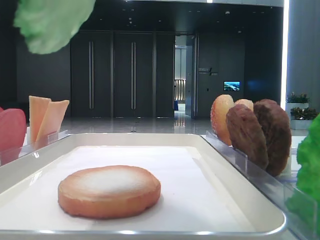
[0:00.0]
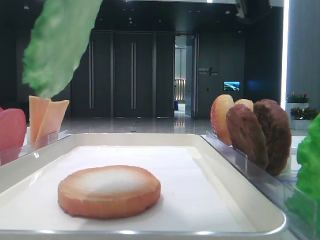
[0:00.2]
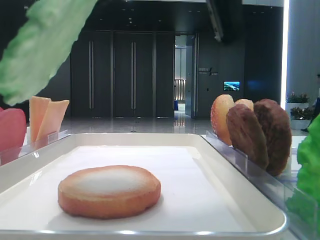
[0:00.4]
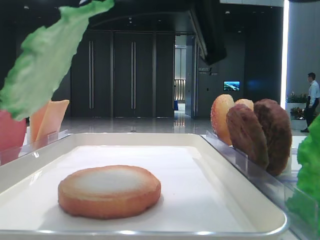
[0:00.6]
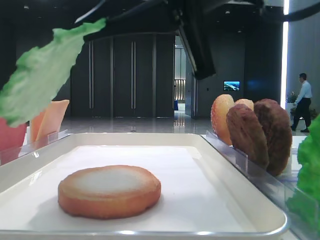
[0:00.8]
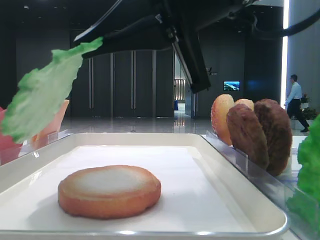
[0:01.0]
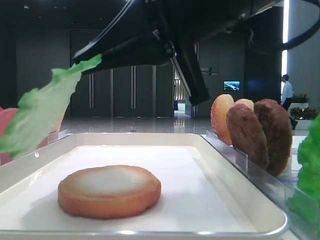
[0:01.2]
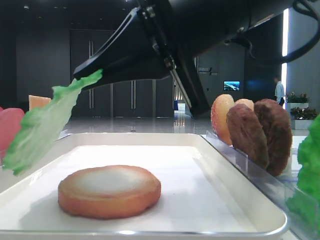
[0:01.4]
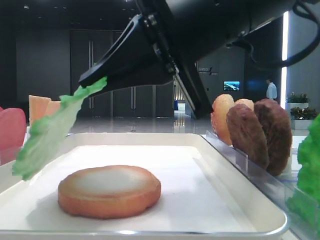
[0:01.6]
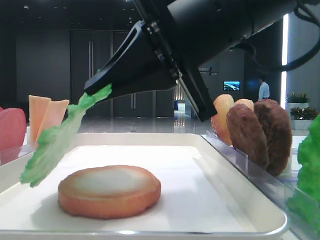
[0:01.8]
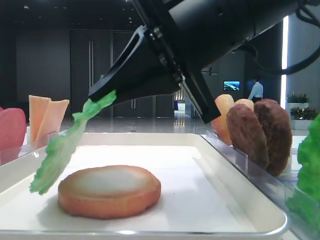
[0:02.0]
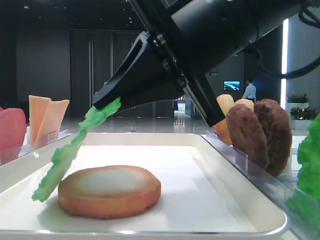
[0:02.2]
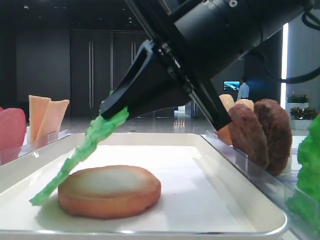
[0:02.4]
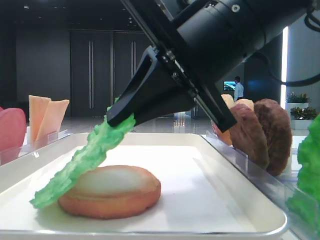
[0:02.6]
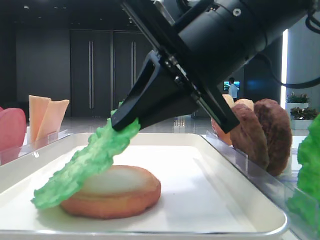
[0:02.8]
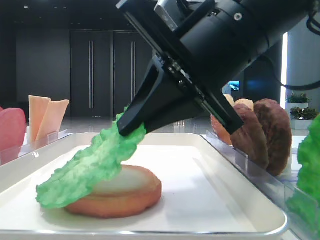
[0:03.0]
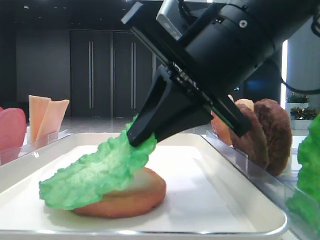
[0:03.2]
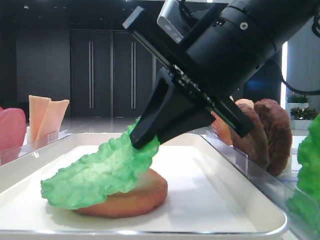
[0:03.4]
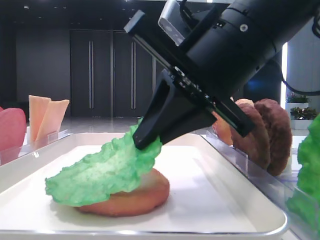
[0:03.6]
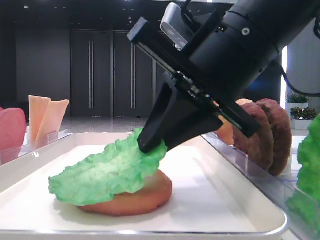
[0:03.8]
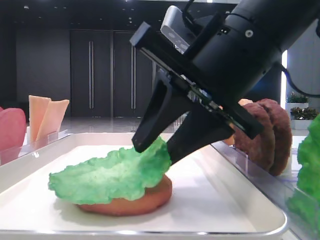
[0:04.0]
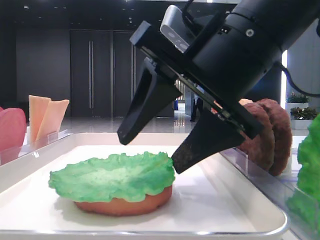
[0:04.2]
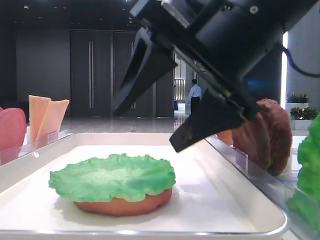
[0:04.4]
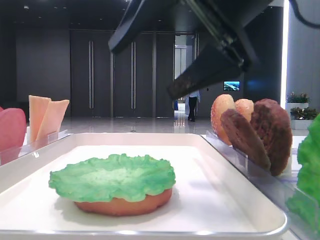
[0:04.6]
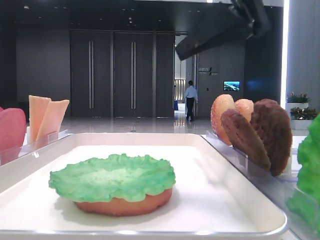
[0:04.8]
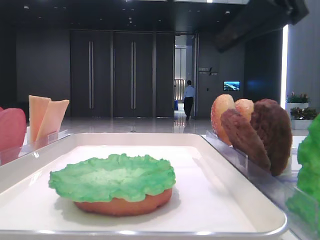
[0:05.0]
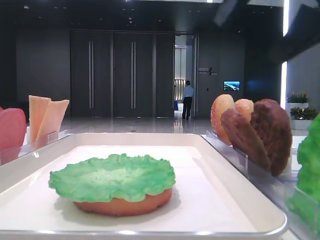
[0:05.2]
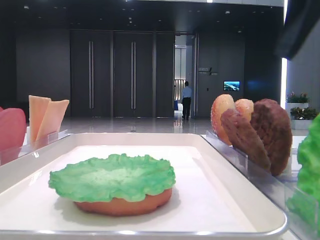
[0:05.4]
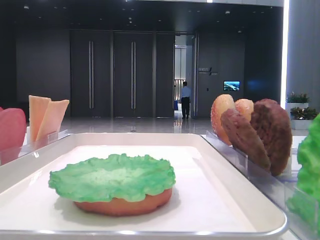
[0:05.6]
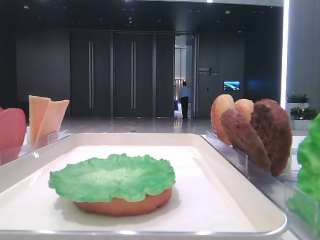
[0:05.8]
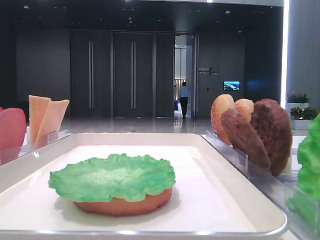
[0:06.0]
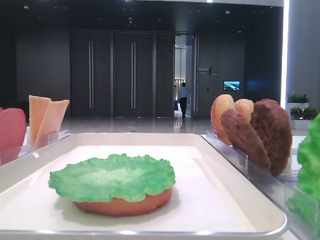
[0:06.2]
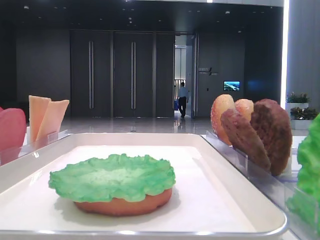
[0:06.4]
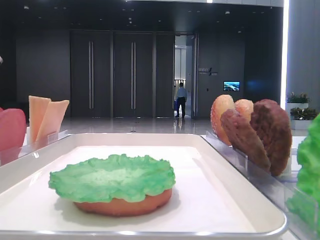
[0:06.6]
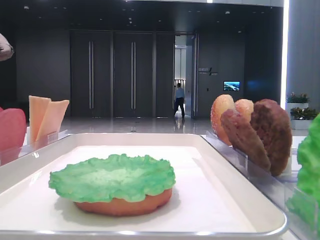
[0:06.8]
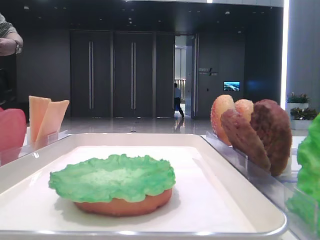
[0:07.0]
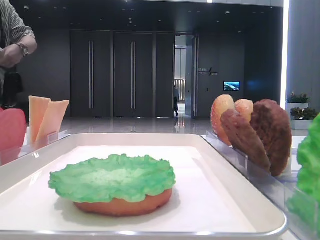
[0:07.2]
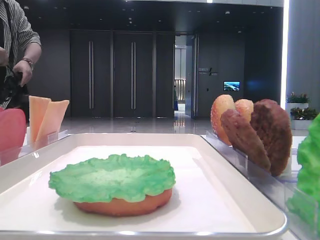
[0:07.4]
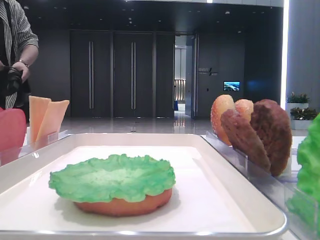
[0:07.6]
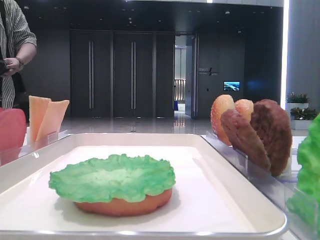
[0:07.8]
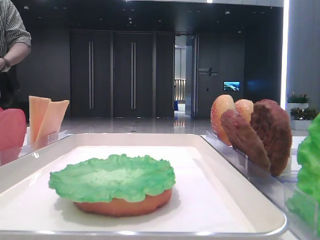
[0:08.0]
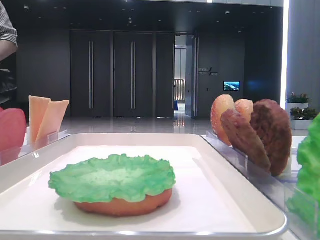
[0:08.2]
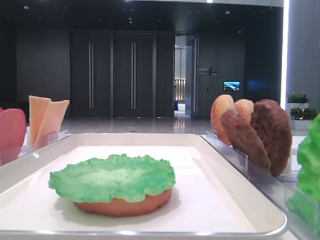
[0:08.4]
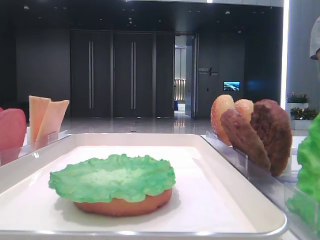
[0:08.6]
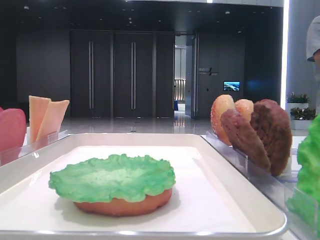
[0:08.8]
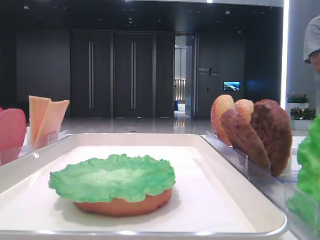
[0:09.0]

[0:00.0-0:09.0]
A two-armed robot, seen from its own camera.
Step, 0.0 to 4.2 s: Place the lettuce leaf on the bottom bread with the right hand.
0.0 to 1.6 s: The right gripper heads downward and forward, covering about 10 cm.
3.0 to 4.4 s: The right gripper opens its fingers.
4.4 to 6.0 s: The right gripper is displaced to the right by roughly 20 cm.
6.0 to 7.6 s: The right gripper heads backward, covering roughly 20 cm.
7.6 to 9.0 s: Both grippers stay put.

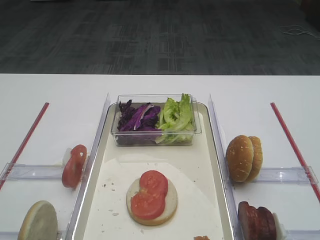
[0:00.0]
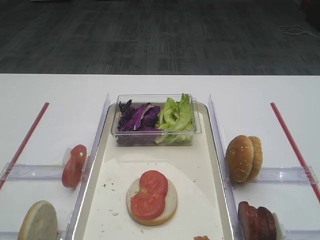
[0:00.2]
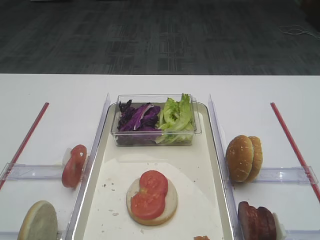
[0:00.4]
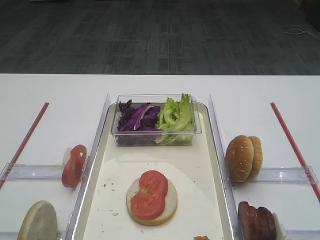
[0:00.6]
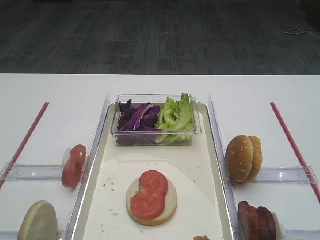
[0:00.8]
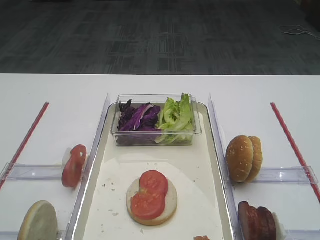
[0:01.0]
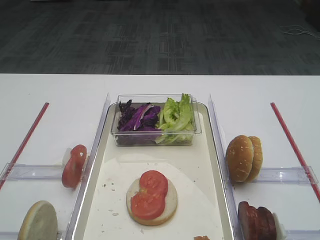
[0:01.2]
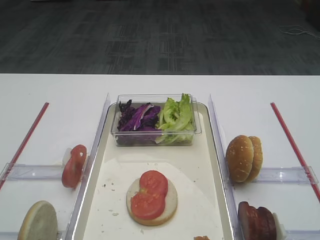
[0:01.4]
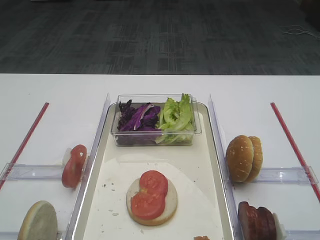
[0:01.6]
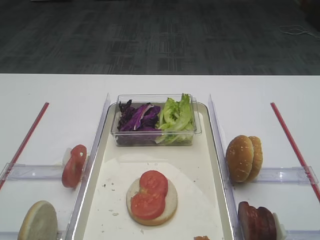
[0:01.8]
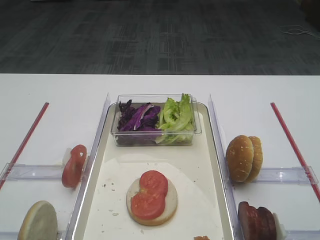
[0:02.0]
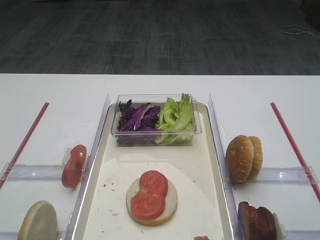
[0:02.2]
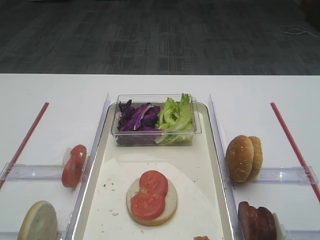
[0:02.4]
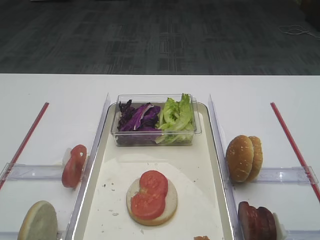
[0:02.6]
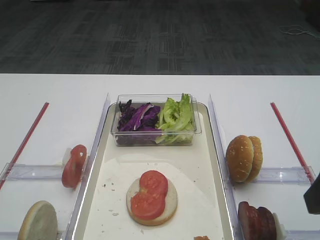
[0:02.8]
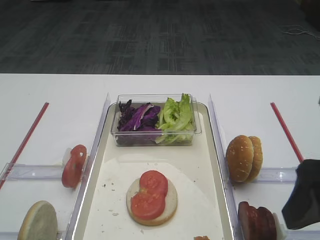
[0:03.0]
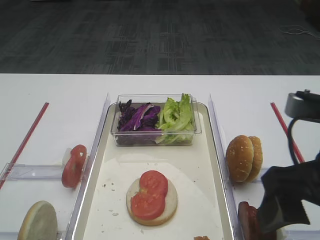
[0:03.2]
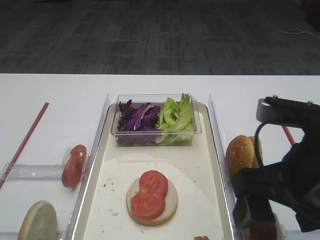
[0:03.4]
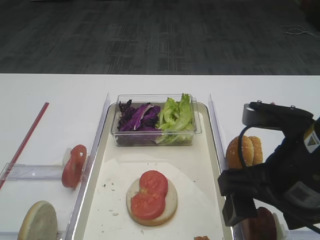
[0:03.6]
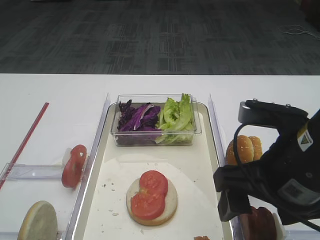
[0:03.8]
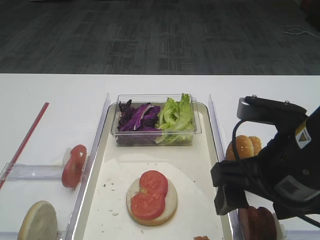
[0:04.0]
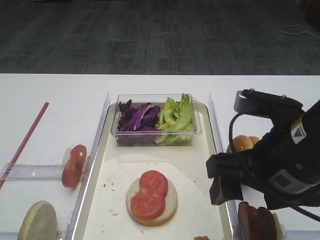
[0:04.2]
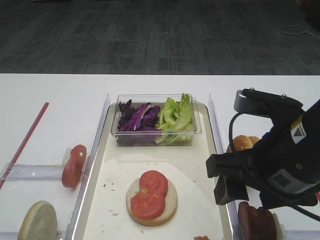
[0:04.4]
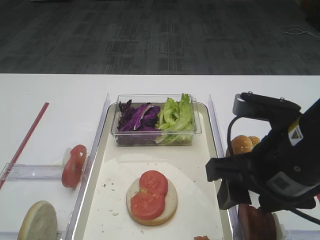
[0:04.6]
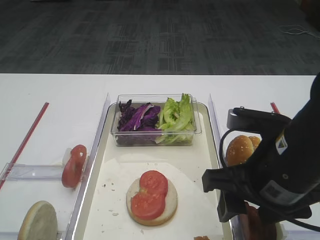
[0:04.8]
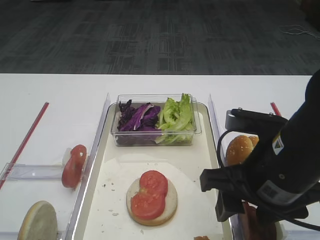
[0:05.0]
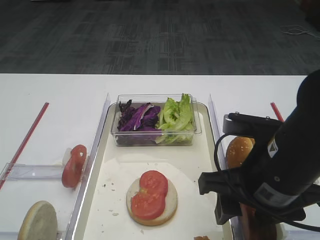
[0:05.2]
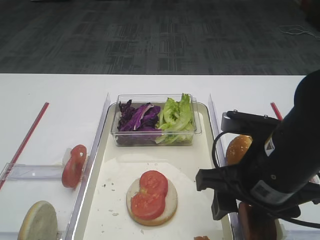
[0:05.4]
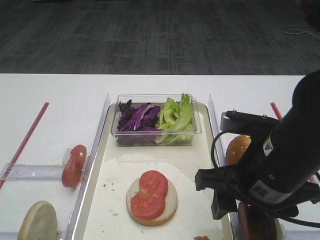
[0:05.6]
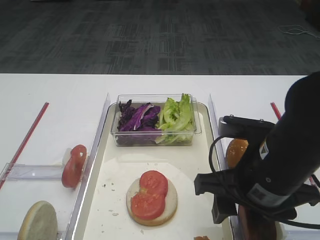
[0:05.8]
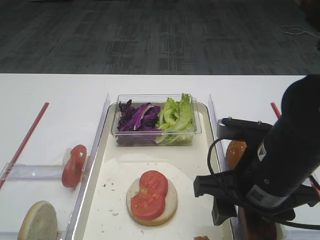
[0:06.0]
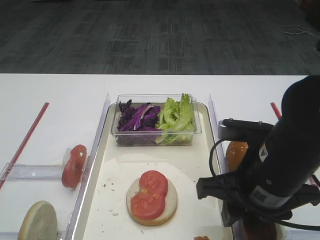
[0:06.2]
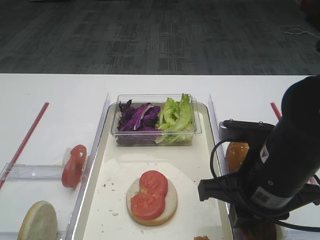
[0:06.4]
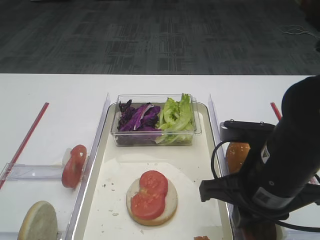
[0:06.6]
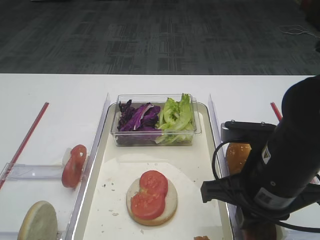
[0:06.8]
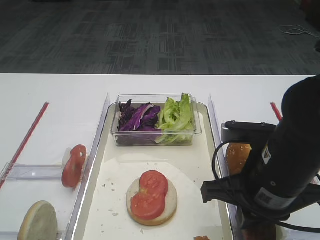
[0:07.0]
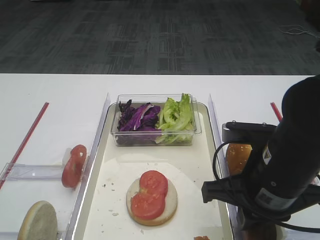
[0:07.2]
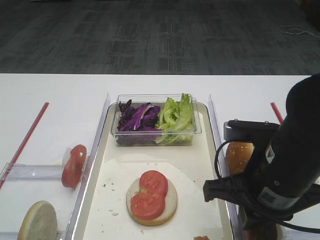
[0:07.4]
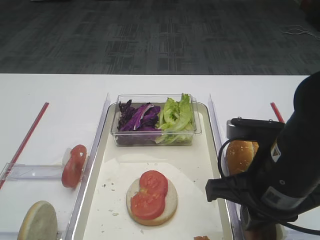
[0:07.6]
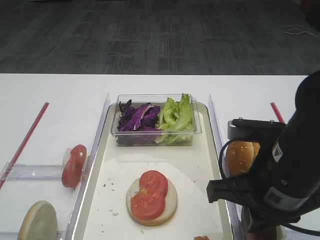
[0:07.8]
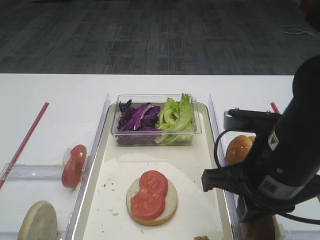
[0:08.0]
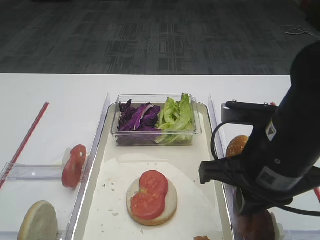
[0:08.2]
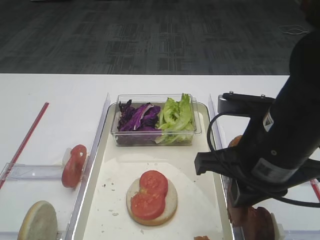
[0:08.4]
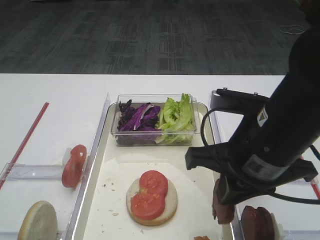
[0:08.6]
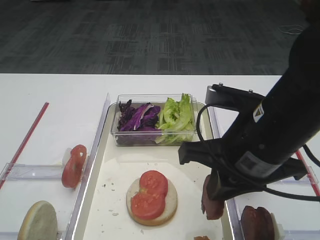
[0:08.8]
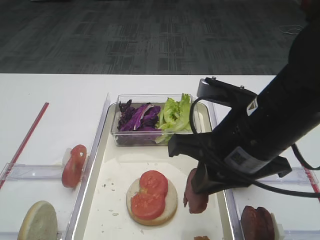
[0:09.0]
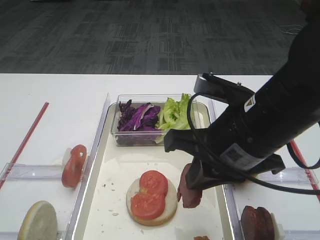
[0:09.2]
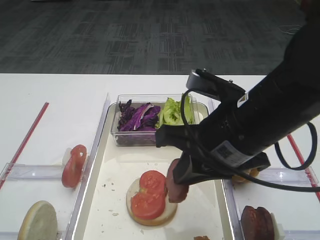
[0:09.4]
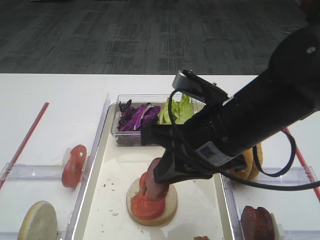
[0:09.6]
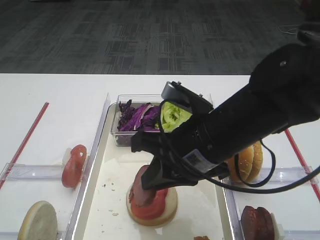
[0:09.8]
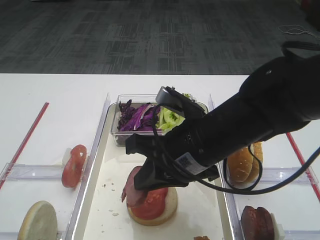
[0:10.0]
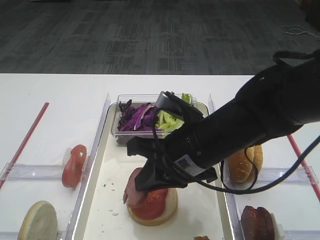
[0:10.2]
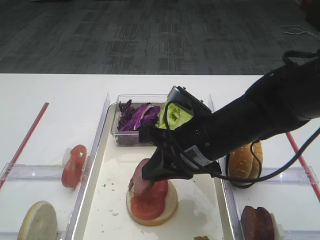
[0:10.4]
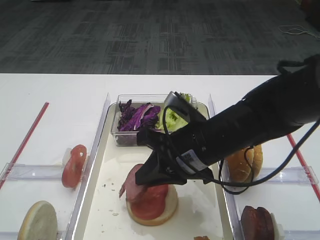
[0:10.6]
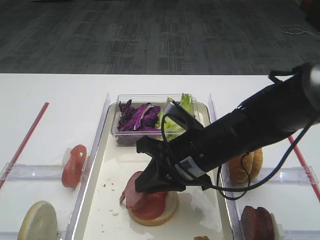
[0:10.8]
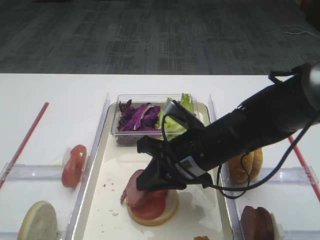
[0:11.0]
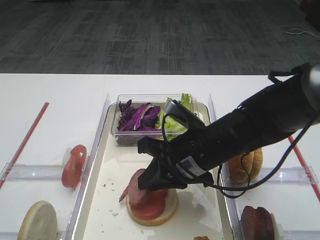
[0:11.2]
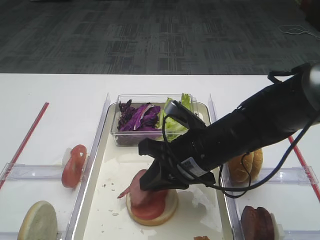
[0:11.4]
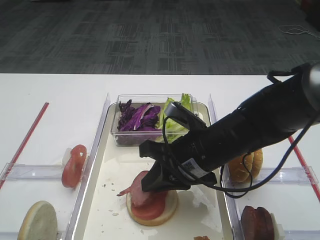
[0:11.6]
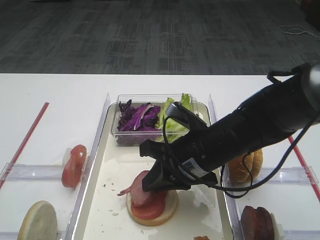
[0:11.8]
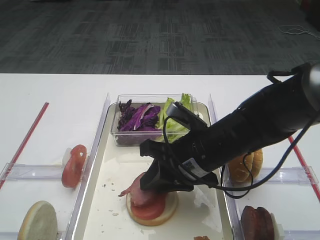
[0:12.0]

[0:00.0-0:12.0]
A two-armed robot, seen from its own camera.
Step, 0.0 to 8.2 s: Pick up the cutlet with the right gripper.
1.6 to 3.0 s: The right gripper travels forward by about 5 cm.
3.0 to 4.4 s: The right gripper heads to the left, covering approximately 5 cm.
4.4 to 6.0 s: The right gripper shifts by approximately 5 cm.
6.0 to 7.6 s: The right gripper closes its fingers.
7.6 to 9.0 s: The right gripper changes place by approximately 5 cm.
9.0 to 10.4 s: The right gripper travels downward and forward by some 10 cm.
10.4 to 12.0 s: The grippers make only small movements.

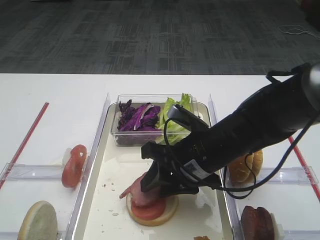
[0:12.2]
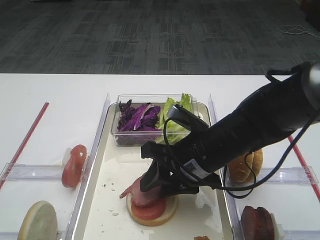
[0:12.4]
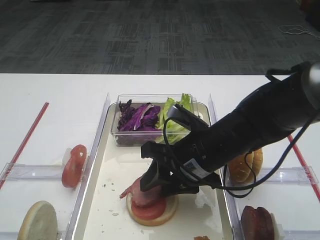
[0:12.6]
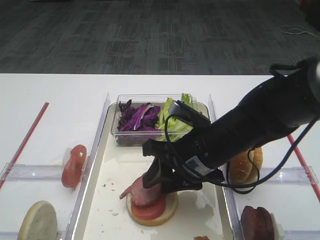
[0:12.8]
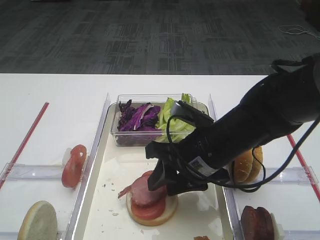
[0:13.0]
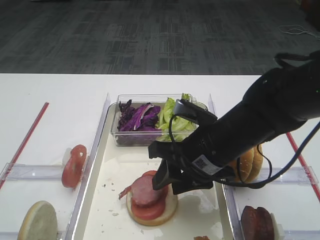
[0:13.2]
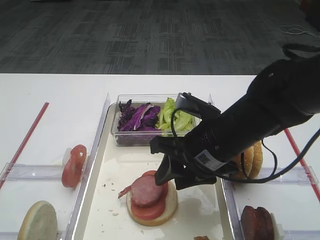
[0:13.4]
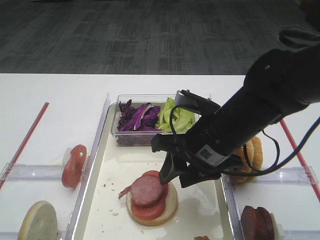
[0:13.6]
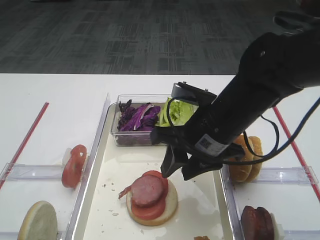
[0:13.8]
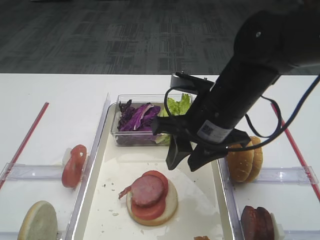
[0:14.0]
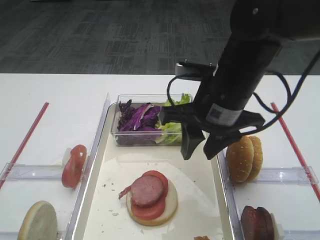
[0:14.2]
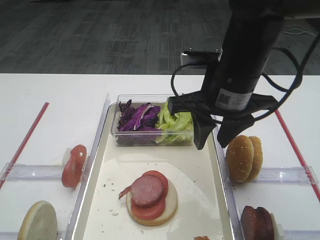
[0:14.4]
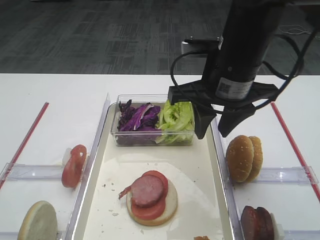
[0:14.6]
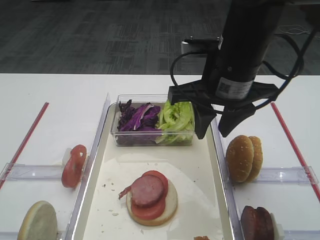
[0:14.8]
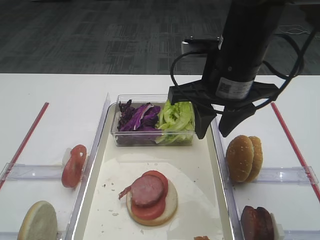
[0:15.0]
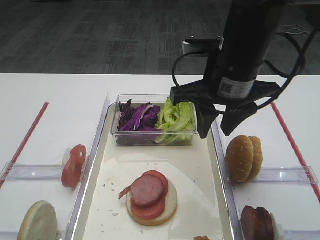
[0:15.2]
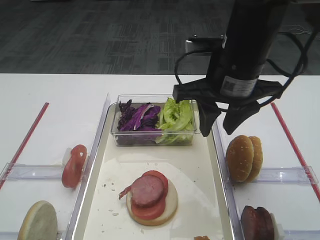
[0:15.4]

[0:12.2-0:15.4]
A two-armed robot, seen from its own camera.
12.2 to 13.8 s: The right gripper changes place by about 5 cm.
13.8 to 15.4 s: The right gripper travels upward by roughly 10 cm.
